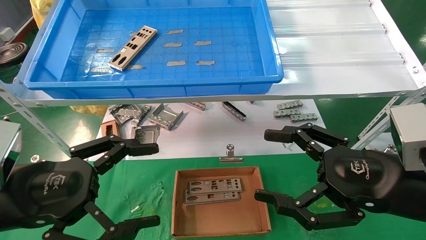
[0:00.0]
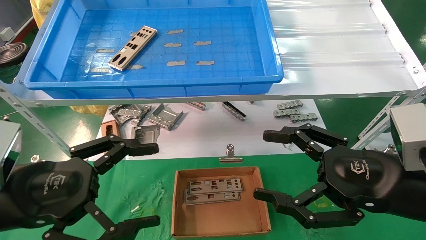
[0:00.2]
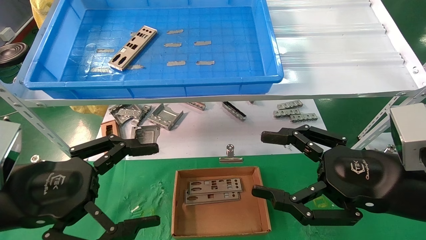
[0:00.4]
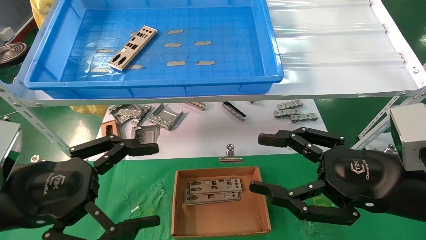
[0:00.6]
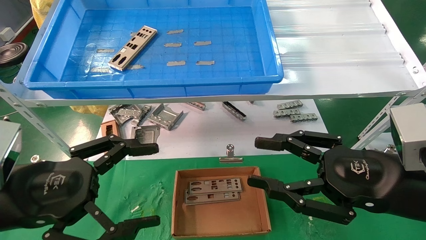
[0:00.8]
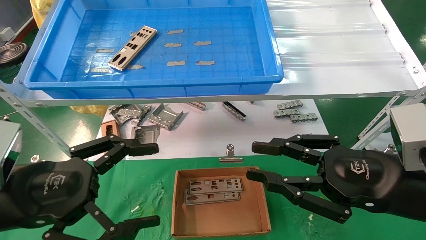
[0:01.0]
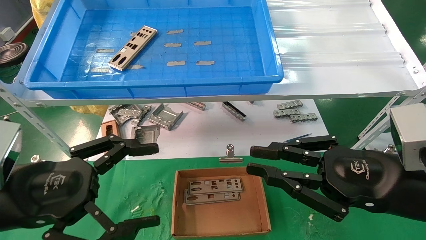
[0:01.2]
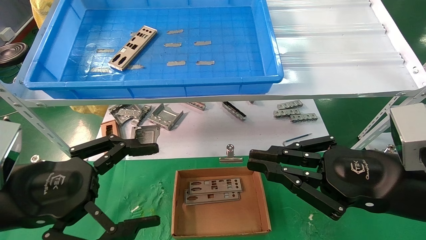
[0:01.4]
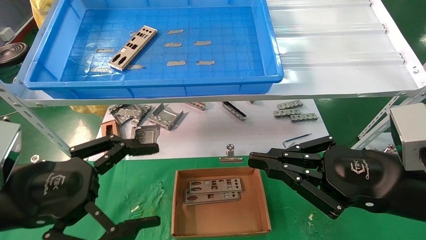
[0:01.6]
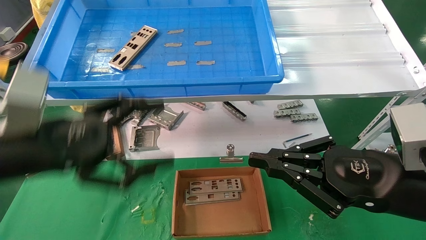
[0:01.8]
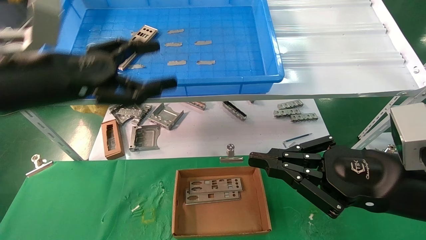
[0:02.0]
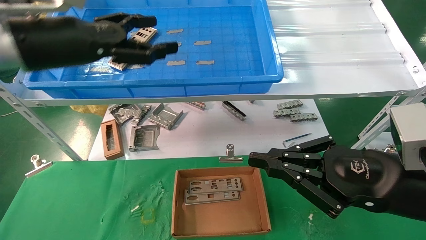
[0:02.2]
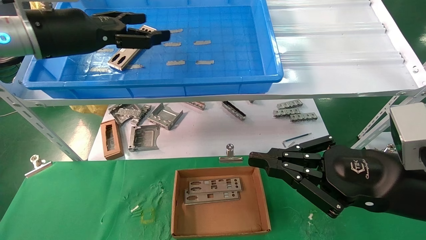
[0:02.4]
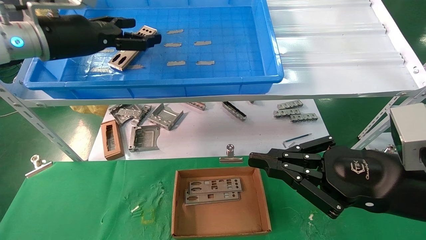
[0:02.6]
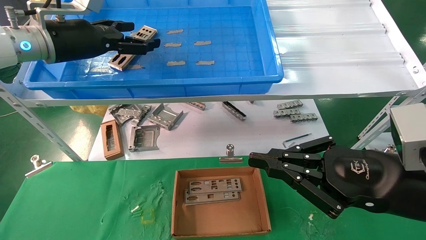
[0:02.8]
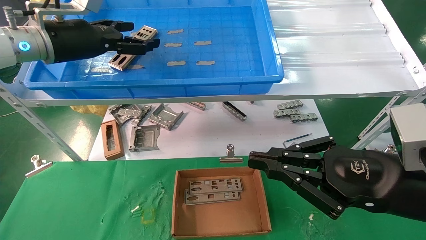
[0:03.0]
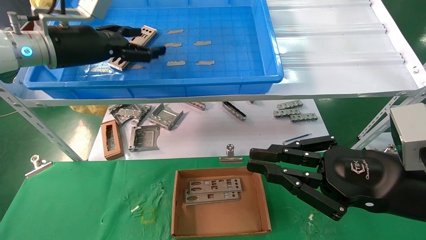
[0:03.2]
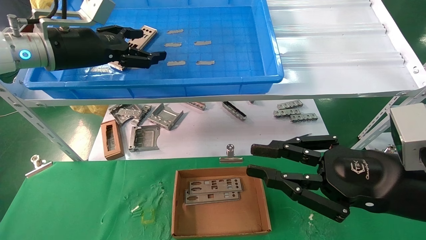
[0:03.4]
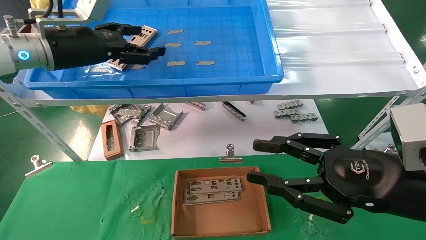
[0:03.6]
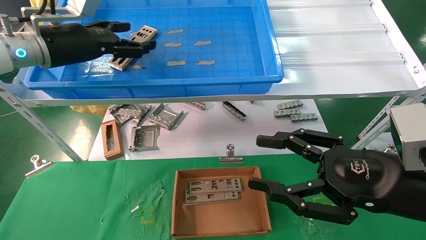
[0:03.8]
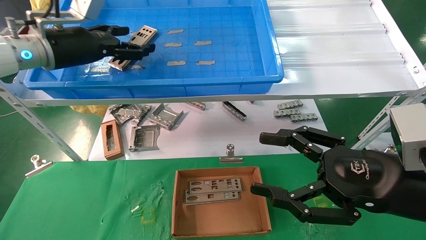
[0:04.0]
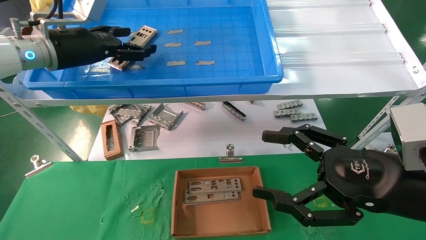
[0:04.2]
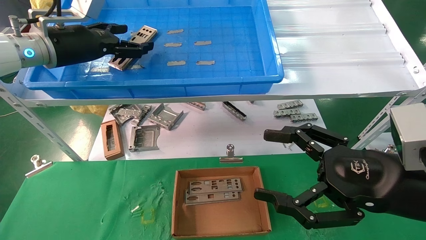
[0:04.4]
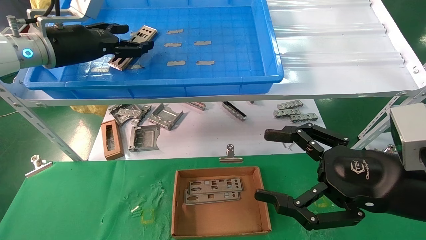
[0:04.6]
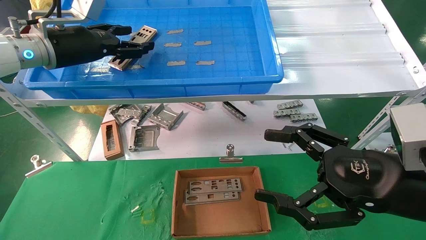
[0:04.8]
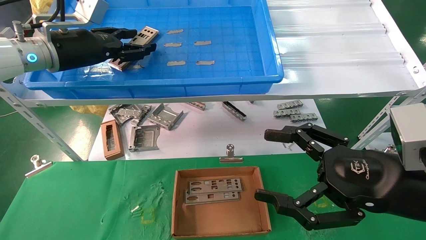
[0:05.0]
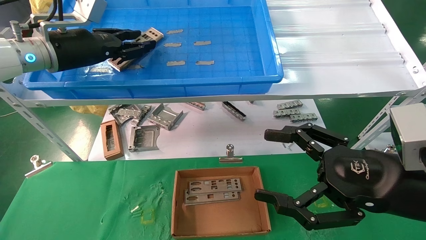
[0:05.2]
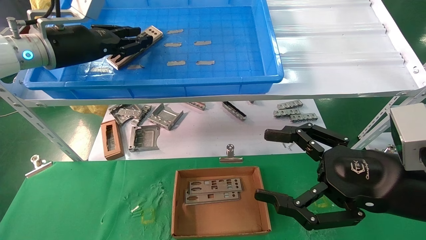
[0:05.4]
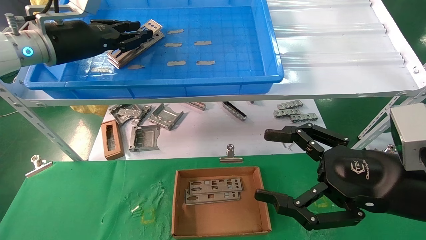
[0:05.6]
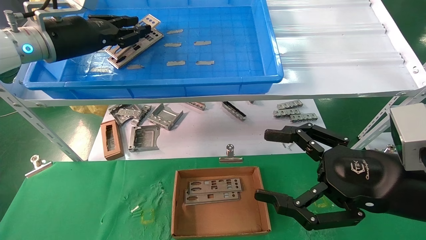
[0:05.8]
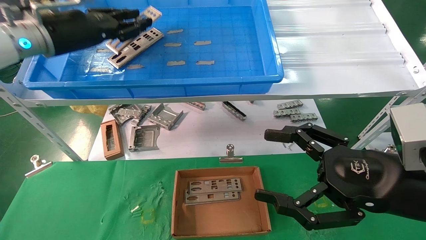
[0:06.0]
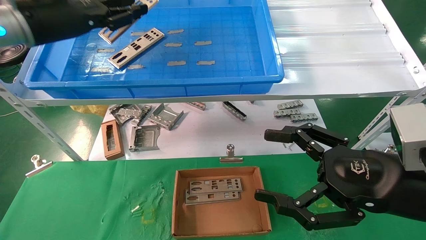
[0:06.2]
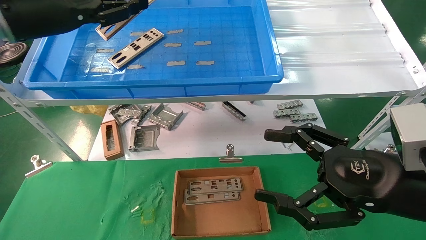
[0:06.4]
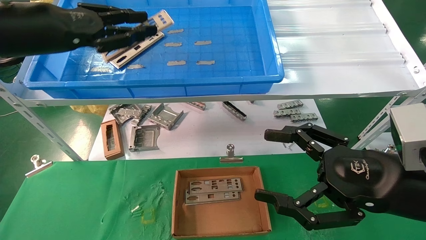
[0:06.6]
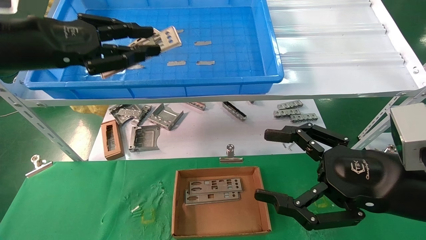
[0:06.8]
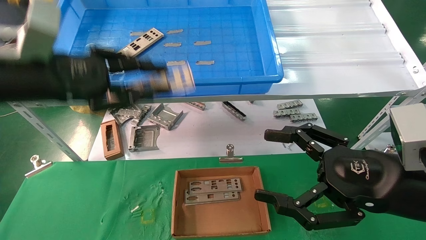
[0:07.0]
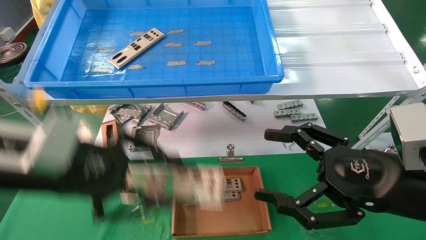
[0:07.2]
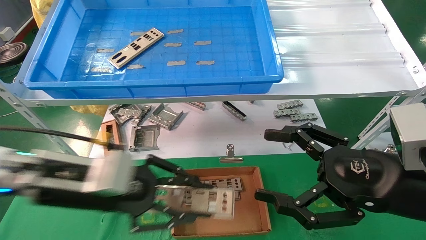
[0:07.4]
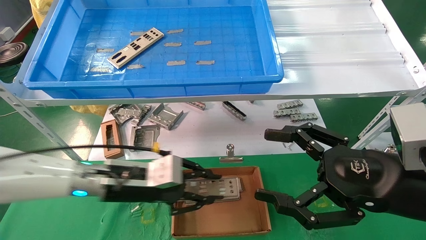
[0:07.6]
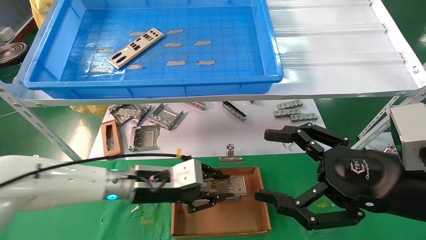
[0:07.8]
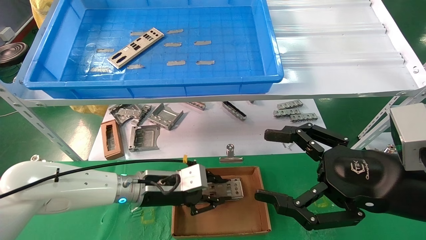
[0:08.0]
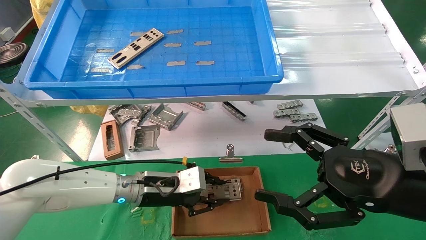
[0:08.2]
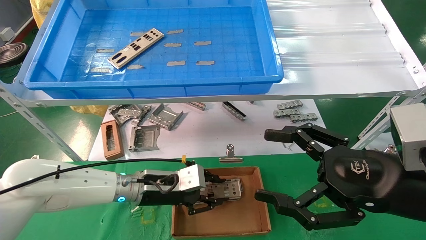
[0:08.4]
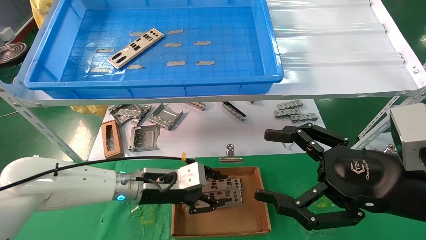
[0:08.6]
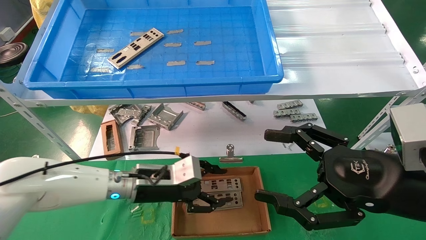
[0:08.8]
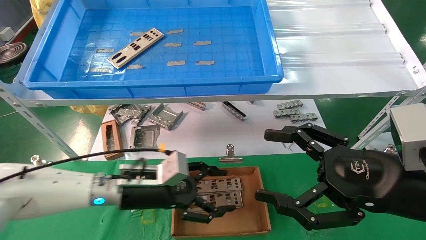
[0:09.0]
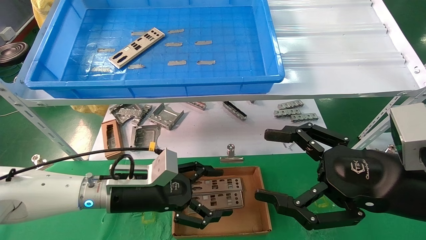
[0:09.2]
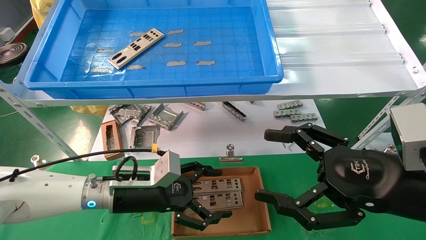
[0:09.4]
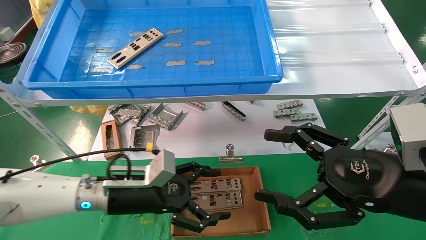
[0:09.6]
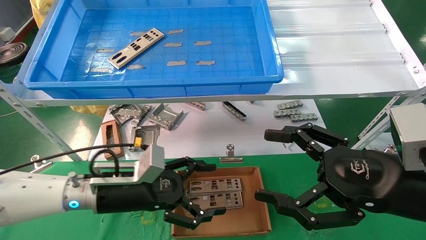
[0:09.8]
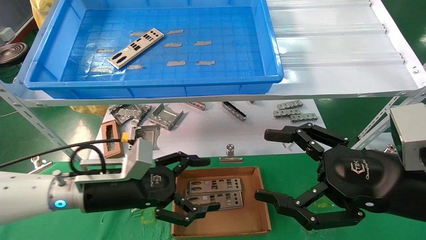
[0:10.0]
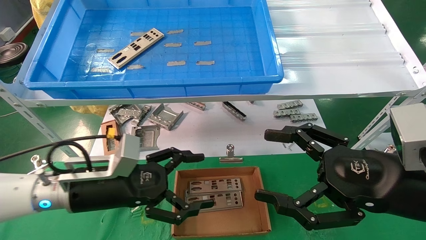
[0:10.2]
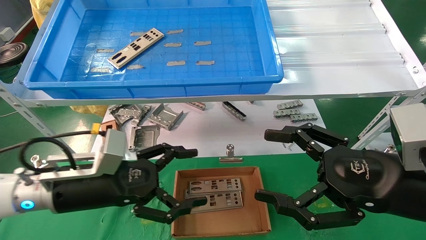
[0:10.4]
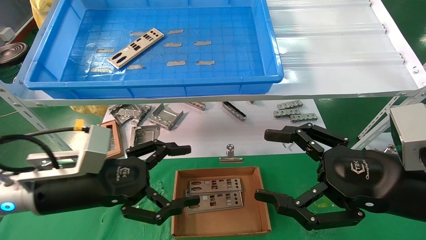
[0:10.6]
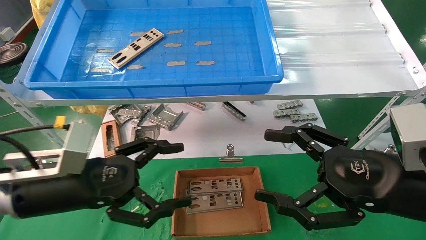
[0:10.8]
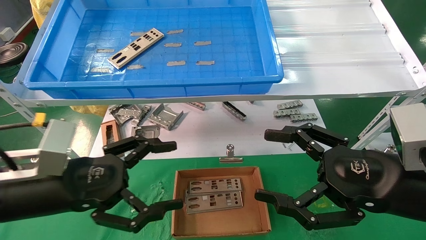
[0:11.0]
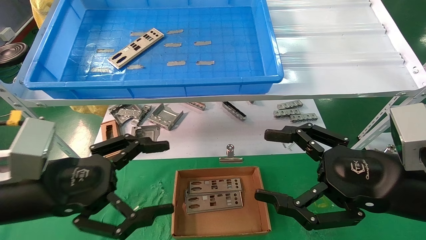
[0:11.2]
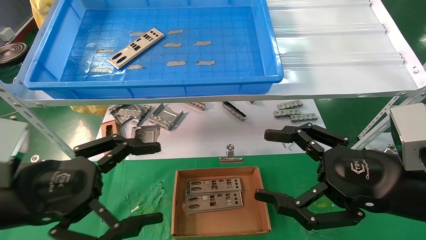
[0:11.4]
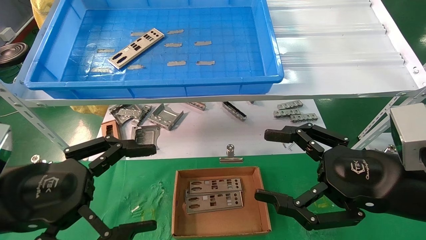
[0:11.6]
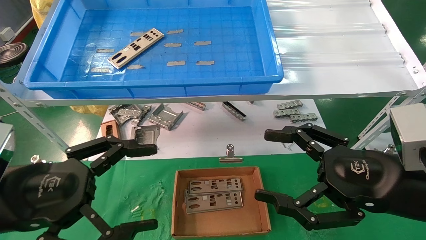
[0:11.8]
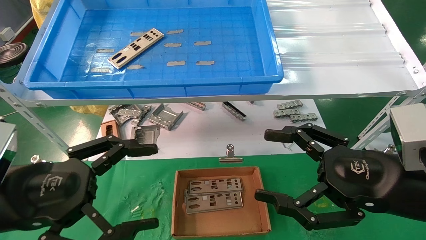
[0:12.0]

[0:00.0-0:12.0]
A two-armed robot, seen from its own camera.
Task of the whole recording: pick up the parts on the tray and put them in the cardboard box.
Step, 0:02.0 to 0:05.2: Pick up the IO bracket from the container box.
Step, 0:05.4 to 0:08.4: Place the IO bracket into the ingredient slot.
0:00.0 to 0:01.6: The right gripper closes up.
0:01.6 to 0:03.0: The left gripper moves forward and upward, some 25 cm.
0:03.0 to 0:04.4: The right gripper opens up.
0:04.4 to 0:06.0: The left gripper closes up.
0:06.0 to 0:07.6: The left gripper travels downward and to the right by roughly 25 cm.
0:07.6 to 0:09.0: The left gripper opens.
0:09.0 to 0:10.4: The left gripper goes about 10 cm backward, to the left and upward, and opens up.
0:10.4 to 0:12.0: The left gripper moves backward, upward and to the left, some 10 cm.

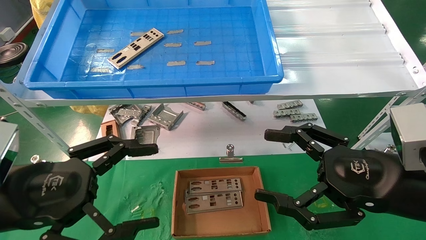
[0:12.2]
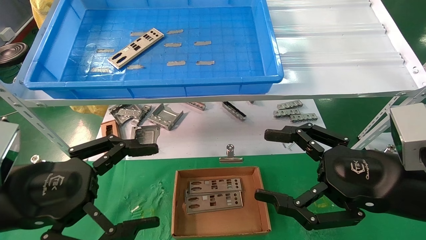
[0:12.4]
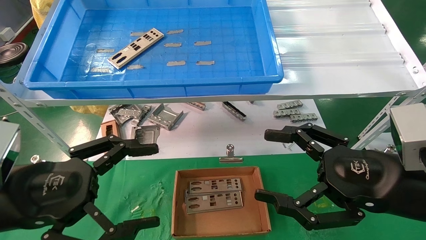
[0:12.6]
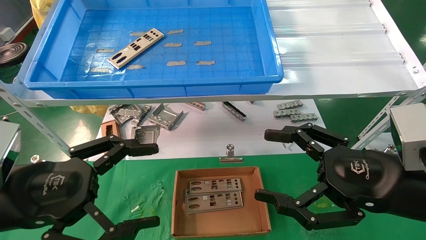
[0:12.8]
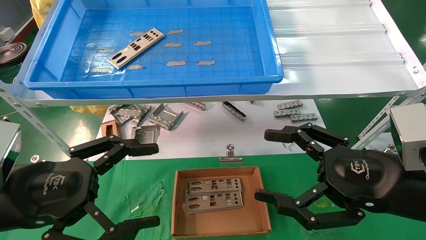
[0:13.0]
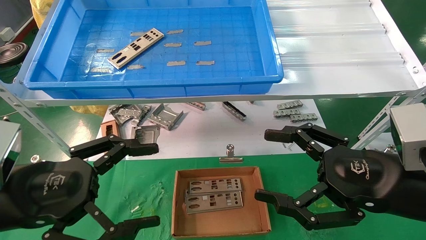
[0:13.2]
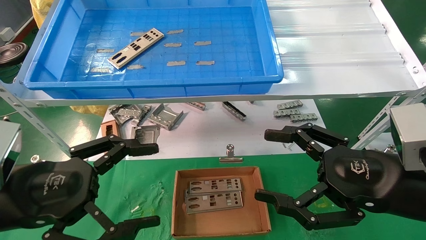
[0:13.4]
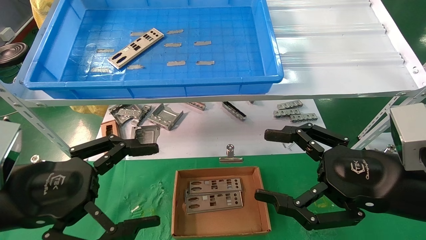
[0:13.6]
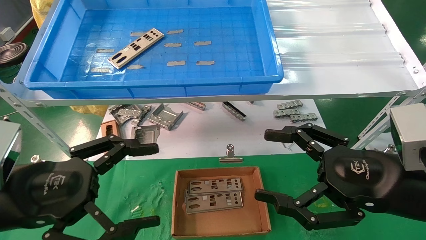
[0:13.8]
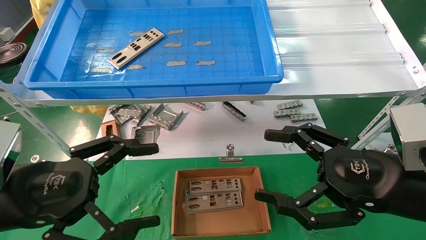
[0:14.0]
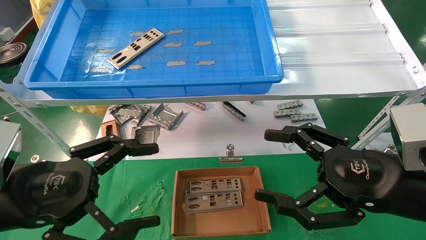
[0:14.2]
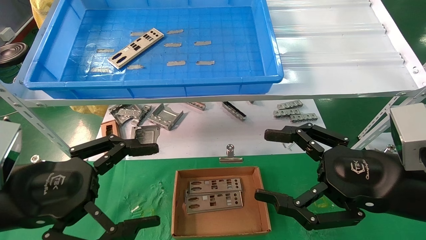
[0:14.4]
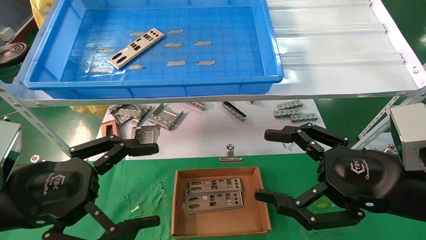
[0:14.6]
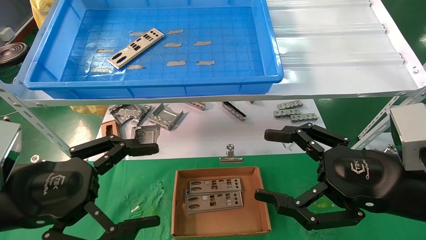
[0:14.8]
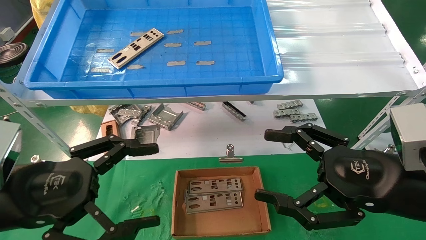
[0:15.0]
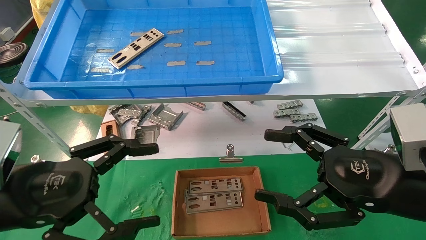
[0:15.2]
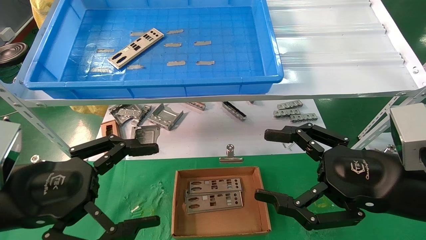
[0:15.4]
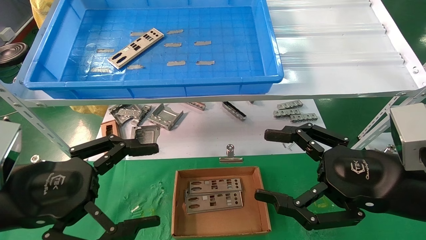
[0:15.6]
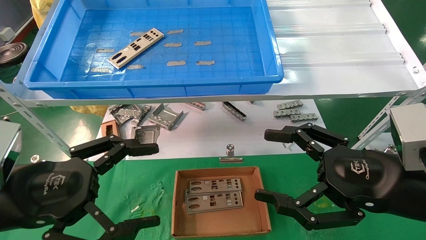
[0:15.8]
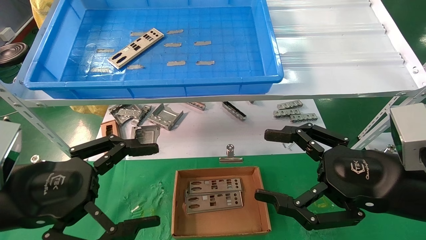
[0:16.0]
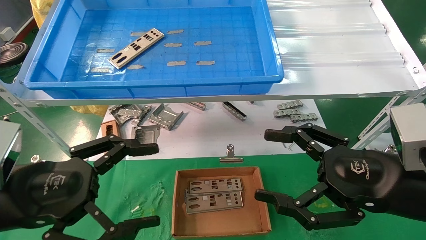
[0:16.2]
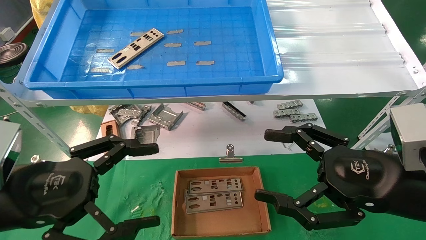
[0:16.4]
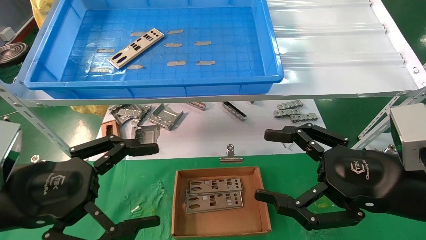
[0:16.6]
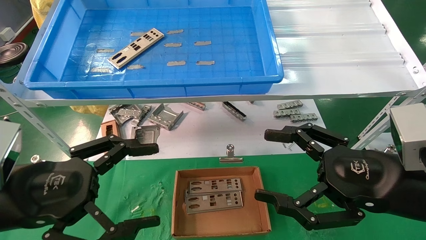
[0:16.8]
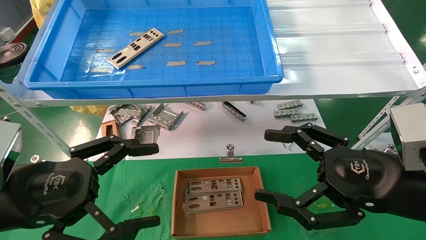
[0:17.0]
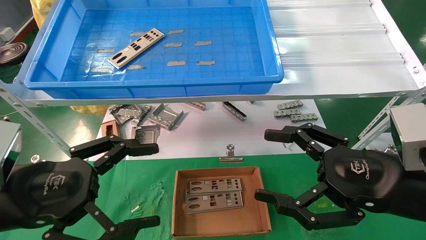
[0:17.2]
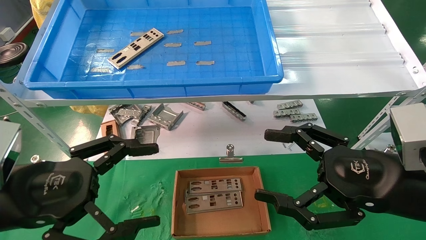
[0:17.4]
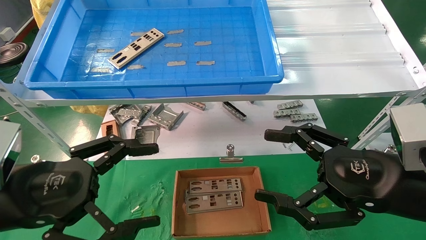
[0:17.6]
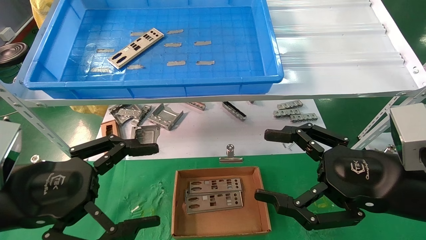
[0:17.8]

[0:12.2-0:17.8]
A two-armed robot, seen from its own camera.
Task of the whole recording: pick up the parts on the tray and put them in the cardboard box.
0:12.2 to 0:17.8: Neither gripper changes place.
